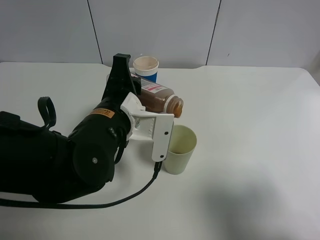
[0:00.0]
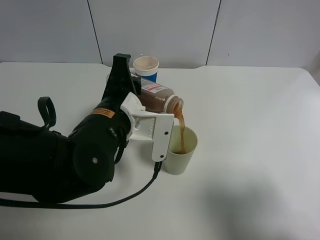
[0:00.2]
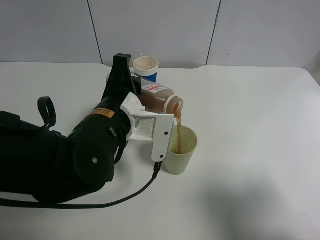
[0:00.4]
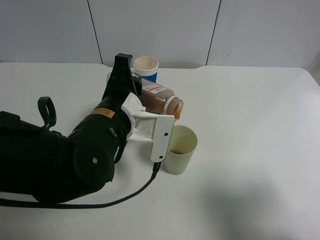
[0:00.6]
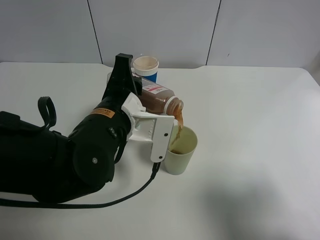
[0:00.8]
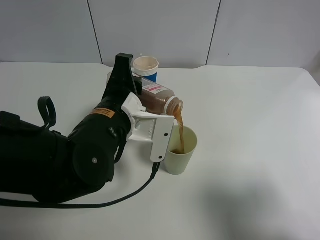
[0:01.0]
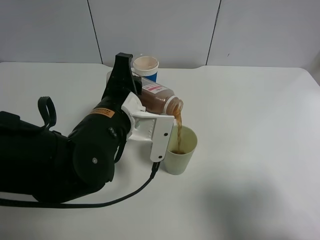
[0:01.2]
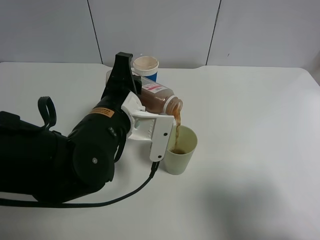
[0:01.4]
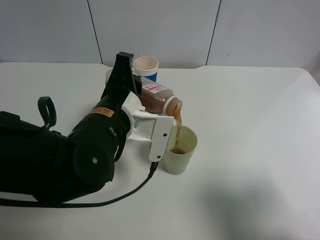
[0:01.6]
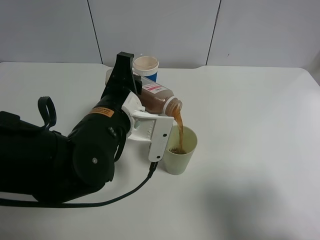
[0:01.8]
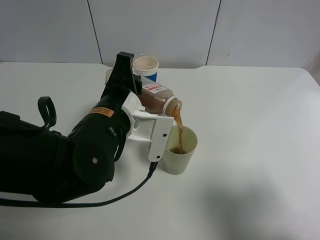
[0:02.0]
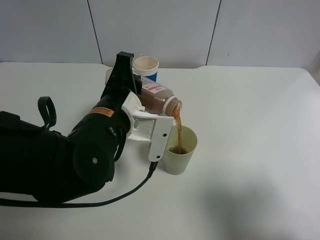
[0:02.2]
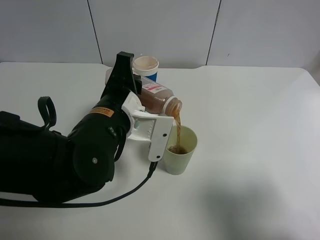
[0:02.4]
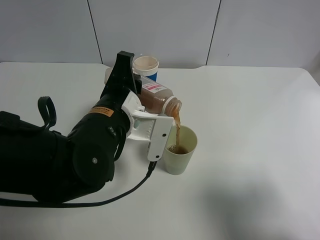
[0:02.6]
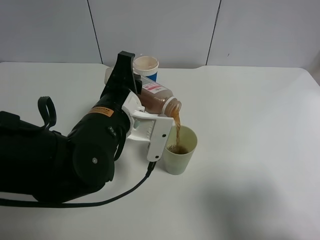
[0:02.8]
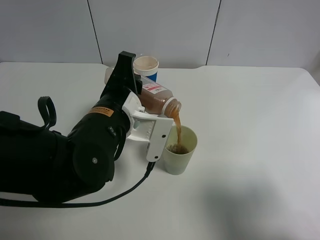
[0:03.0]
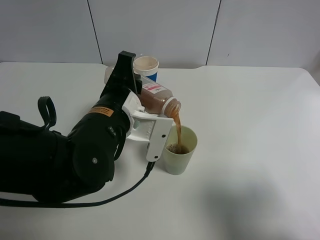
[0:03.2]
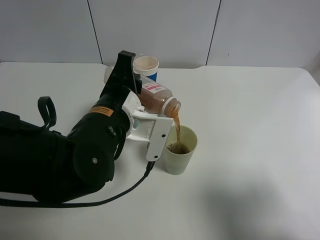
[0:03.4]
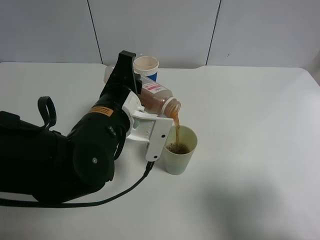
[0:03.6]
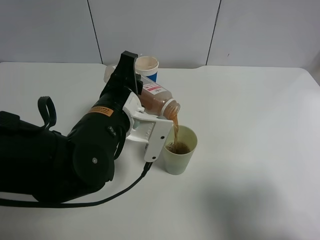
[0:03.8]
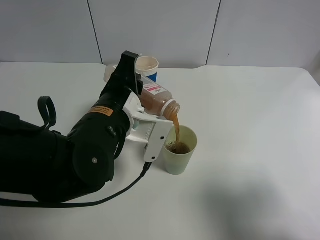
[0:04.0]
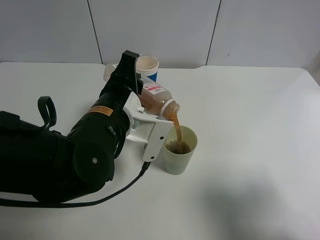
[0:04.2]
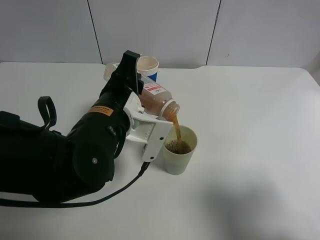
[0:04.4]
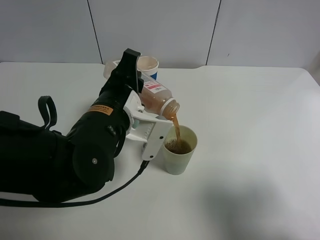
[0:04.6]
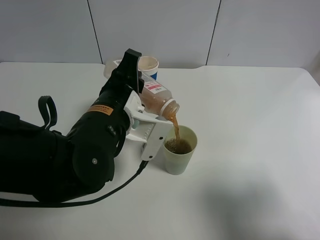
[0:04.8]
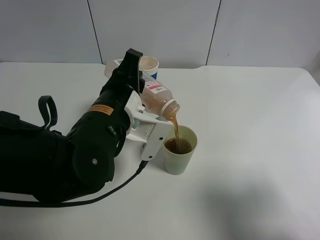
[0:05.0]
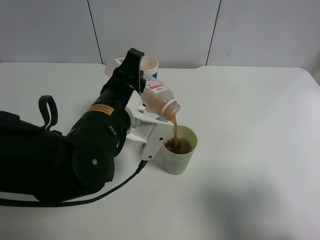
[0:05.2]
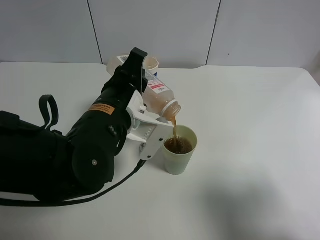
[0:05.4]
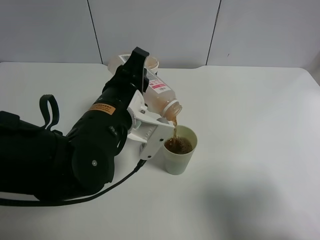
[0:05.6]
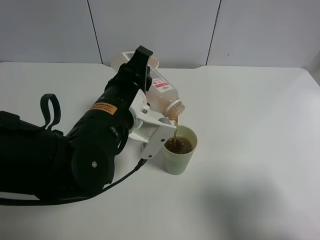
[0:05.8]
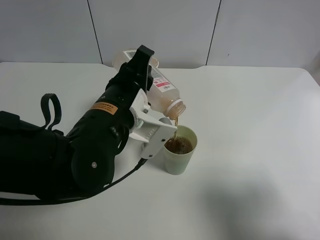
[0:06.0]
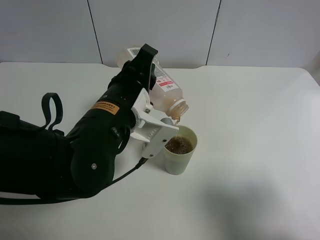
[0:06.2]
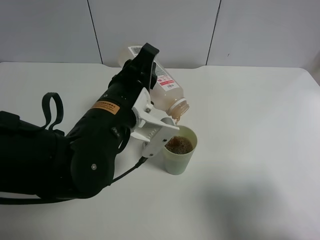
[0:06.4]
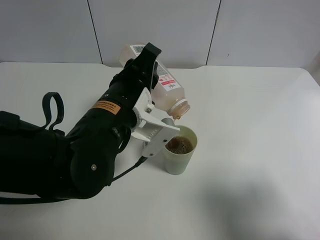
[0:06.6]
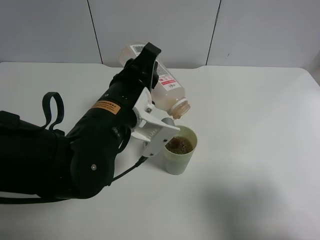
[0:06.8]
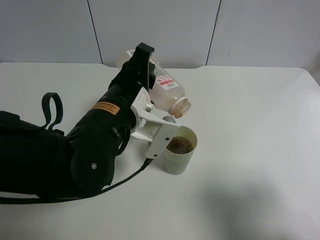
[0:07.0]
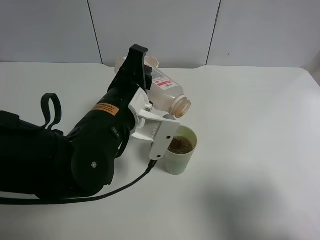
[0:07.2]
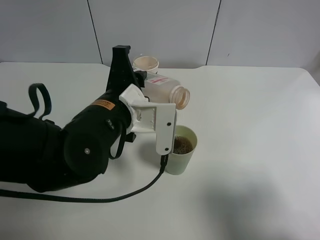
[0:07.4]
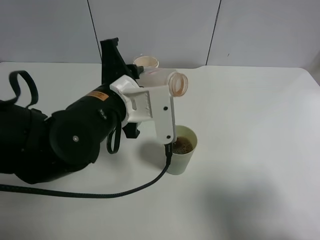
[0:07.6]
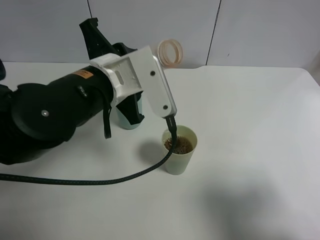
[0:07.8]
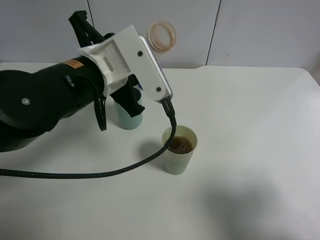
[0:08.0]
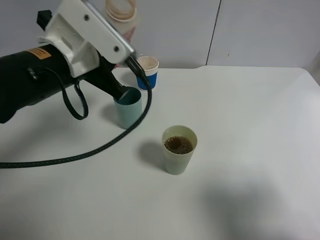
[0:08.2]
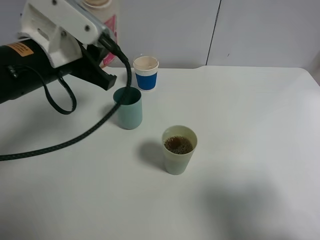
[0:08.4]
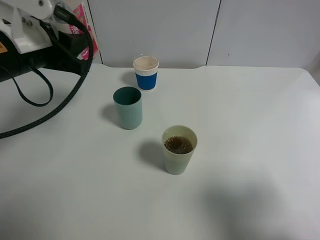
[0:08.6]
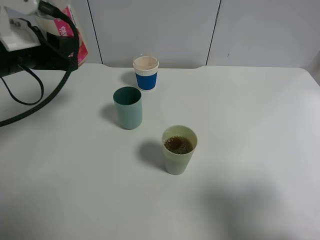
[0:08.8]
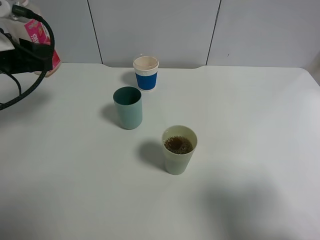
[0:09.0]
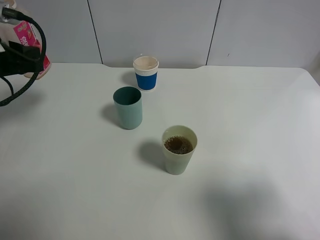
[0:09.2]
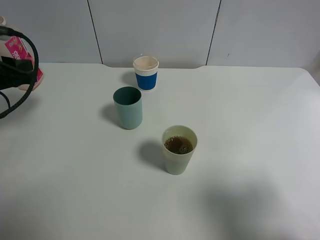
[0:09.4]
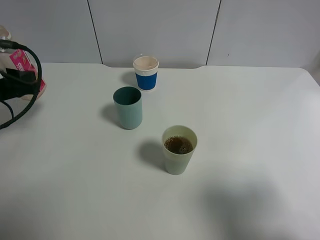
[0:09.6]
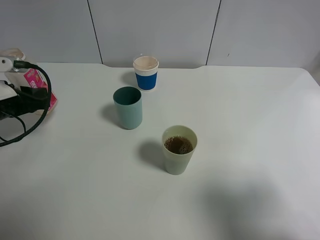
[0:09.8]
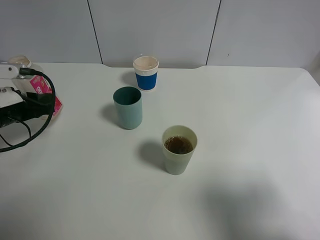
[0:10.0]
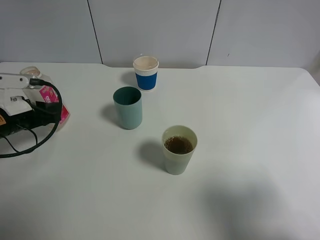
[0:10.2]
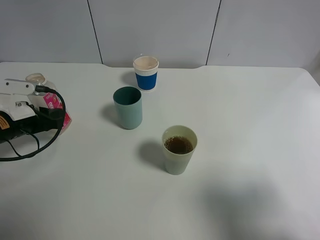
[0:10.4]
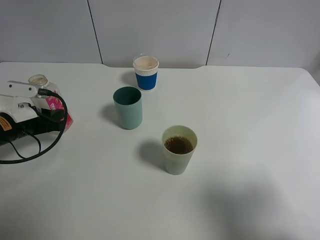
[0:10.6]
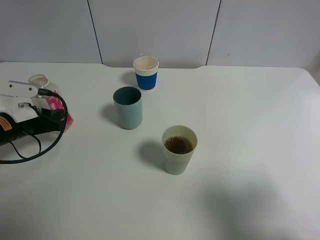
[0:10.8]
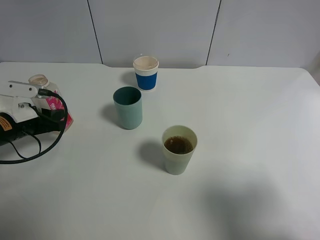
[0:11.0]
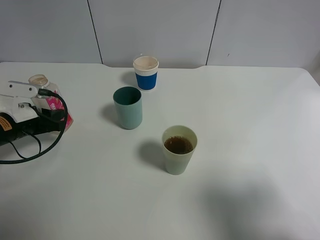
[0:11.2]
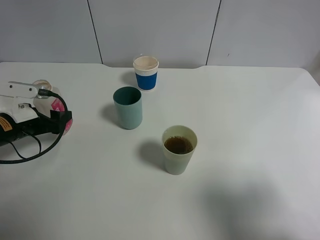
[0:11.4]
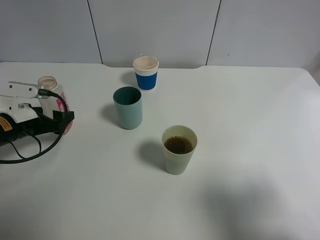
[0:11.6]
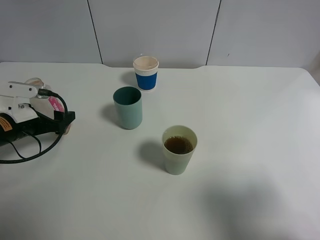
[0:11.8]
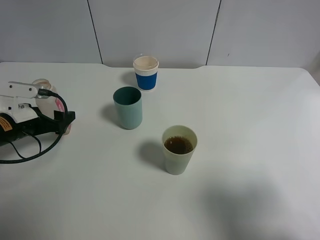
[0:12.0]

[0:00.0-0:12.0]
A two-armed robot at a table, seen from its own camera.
Task of the whole recording: use a clamp to hold the bottle of the drink, pour the beverage into a random cup, then clamp the cup containing the drink and pour the drink into another random cup.
Step, 0:00.0 to 0:07.2: Pour the drink into the green plastic cup with left gripper.
Step, 0:07.4 to 0:11.6: Place the drink bottle on the table with left gripper.
0:00.0 to 0:01.6: Both grippers stay about where they are.
0:01.6 to 0:03.0: Neither gripper changes place.
0:03.0 to 0:06.0: The grippers move only a little.
0:07.6 to 0:09.0: The left gripper travels to the left by about 20 cm.
0:09.0 to 0:10.4: The left gripper is displaced downward by some 15 cm.
0:10.4 to 0:12.0: The left gripper opens.

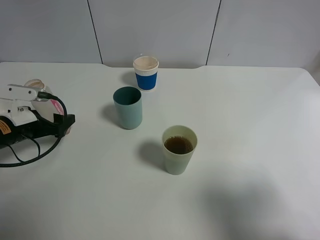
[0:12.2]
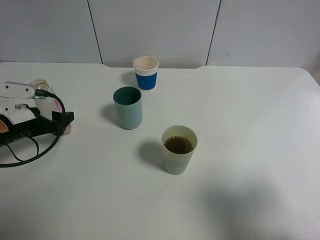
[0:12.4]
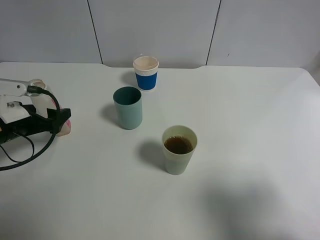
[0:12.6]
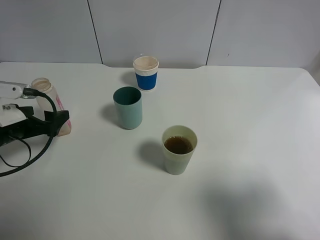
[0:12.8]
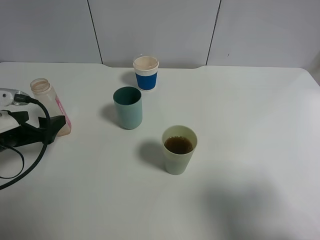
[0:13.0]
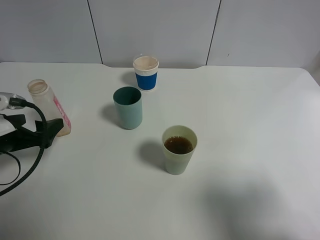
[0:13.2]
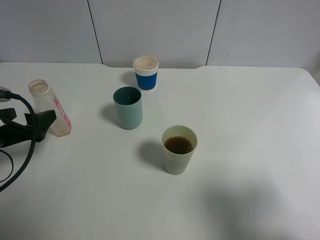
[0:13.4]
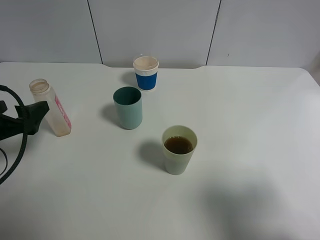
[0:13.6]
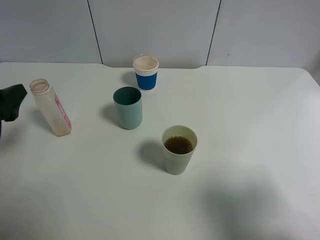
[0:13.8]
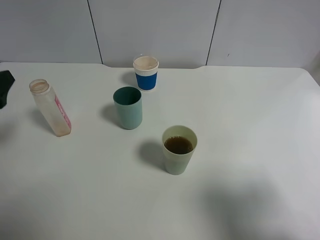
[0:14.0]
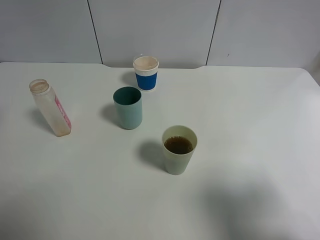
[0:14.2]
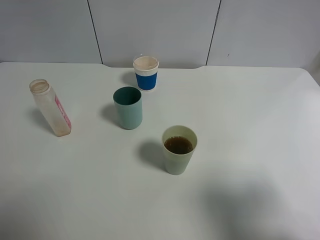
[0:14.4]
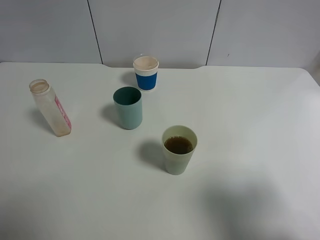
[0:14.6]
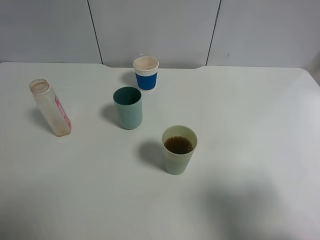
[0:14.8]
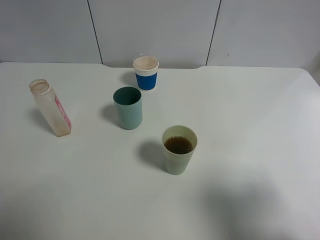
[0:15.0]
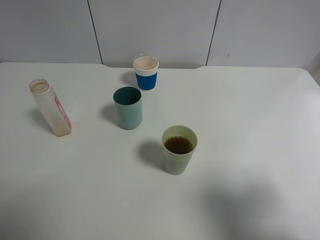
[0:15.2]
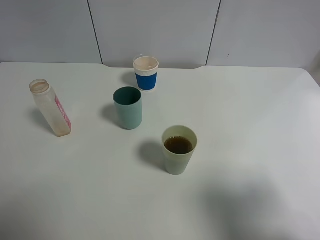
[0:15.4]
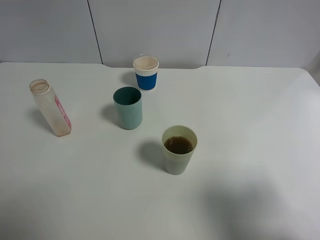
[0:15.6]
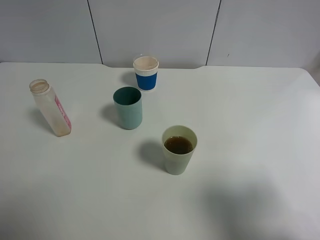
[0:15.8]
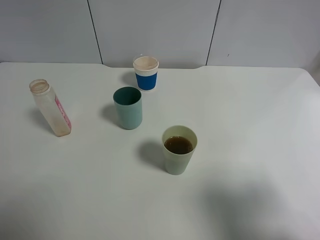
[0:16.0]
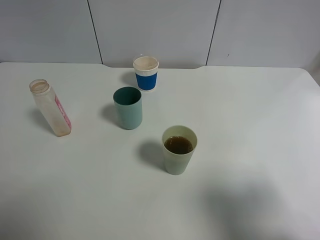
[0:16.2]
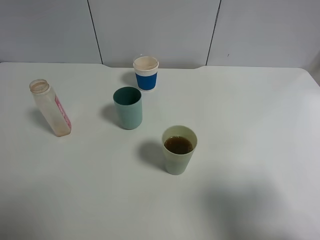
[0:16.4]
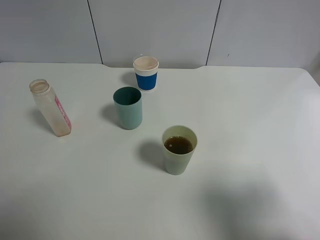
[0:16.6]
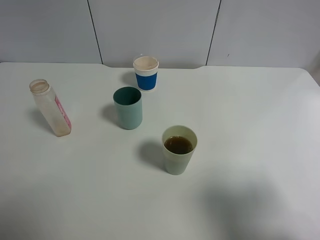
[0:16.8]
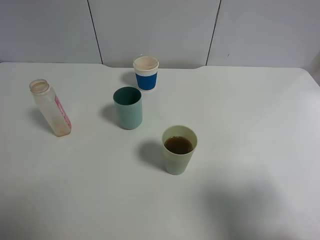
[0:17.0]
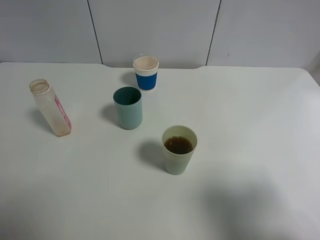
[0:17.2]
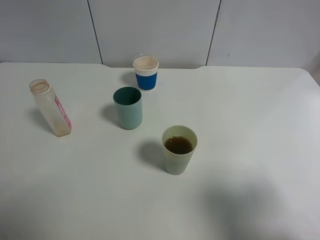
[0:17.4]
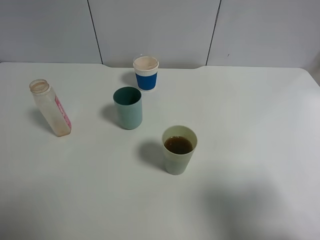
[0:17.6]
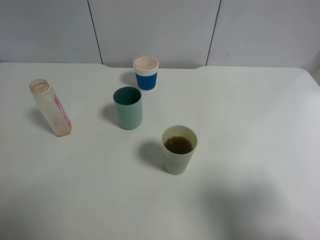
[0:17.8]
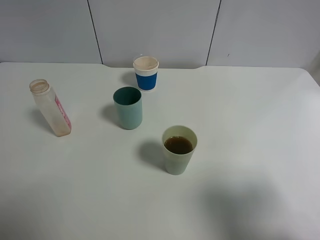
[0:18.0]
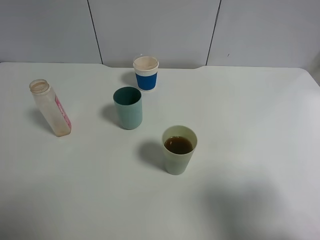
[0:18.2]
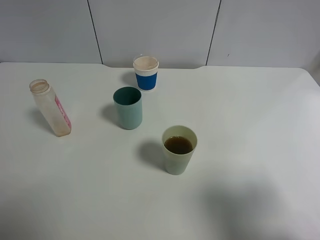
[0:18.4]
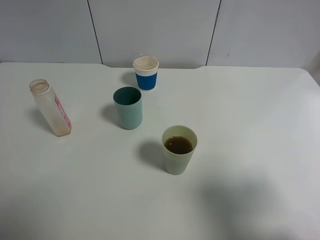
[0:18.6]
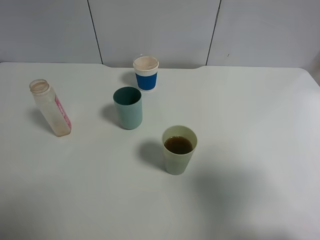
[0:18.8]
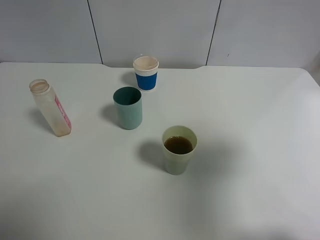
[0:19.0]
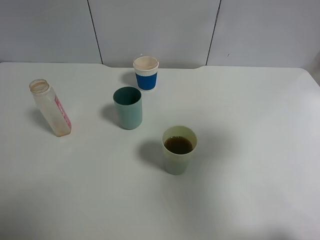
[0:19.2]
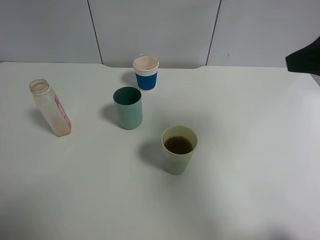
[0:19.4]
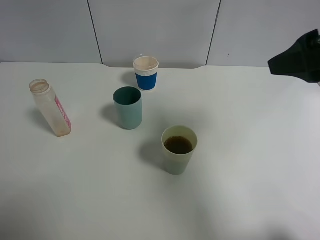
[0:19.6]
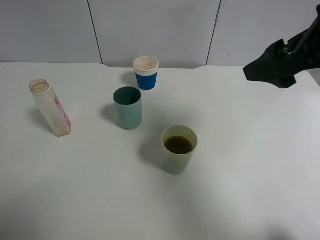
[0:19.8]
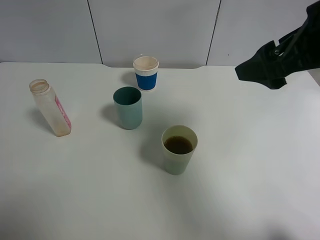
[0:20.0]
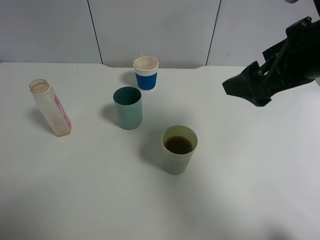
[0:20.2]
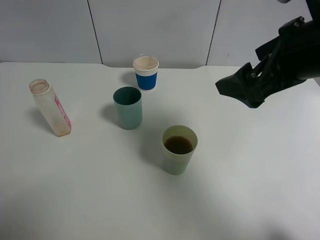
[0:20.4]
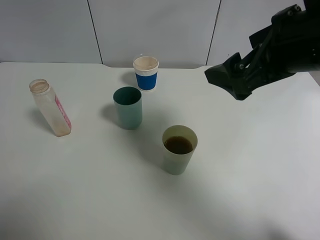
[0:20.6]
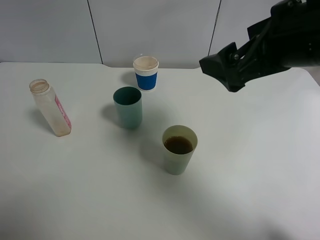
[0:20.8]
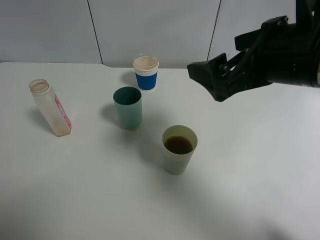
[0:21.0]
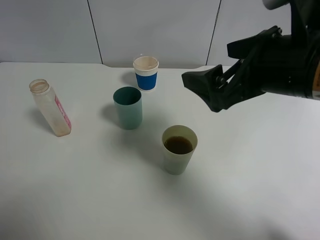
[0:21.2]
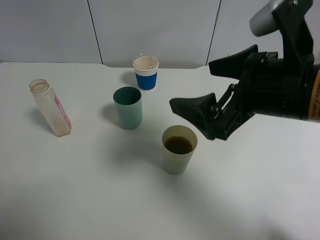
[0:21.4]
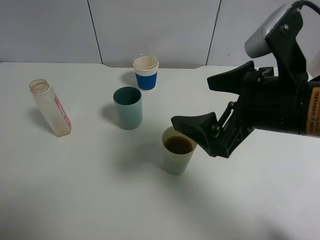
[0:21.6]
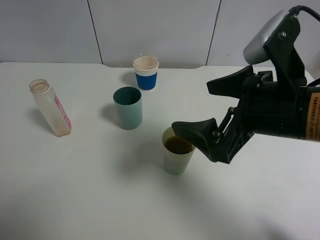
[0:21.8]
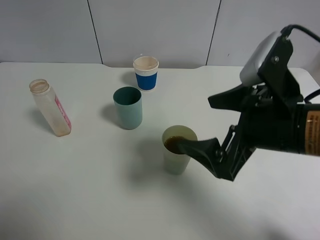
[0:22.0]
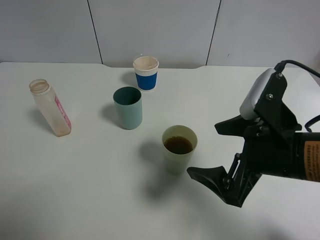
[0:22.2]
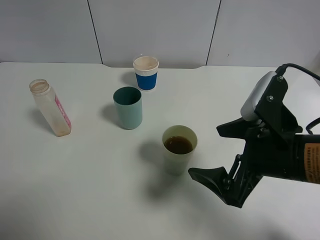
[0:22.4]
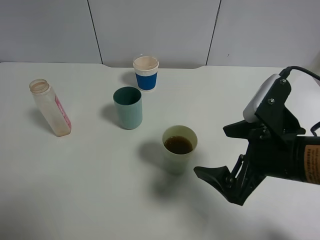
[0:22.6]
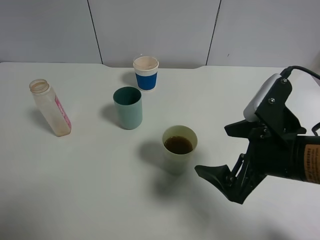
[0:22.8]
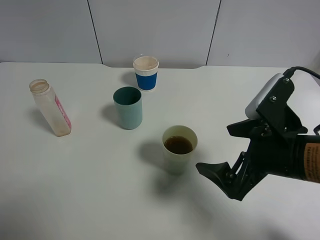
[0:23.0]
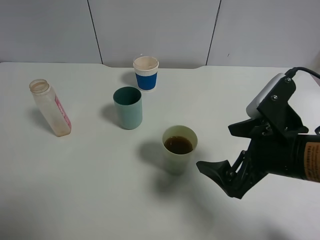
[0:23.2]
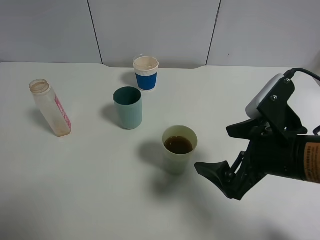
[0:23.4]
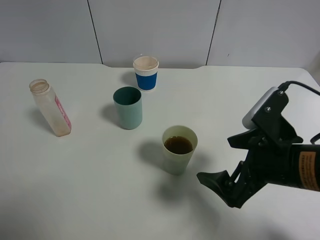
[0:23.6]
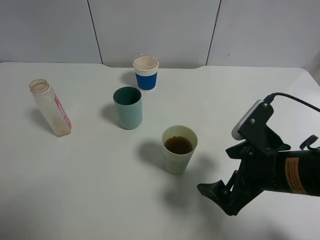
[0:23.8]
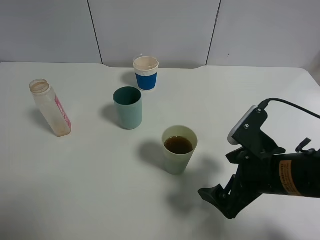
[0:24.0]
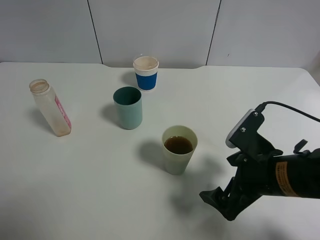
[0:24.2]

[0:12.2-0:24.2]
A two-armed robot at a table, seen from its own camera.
Task of the whole recording: use a clamp to hold the bottle of the drink, pour the beverage into a random cup, then clamp the cup containing the drink and pour the drink into another random cup.
0:12.2 to 0:13.8: The left gripper is displaced upward and backward by roughly 15 cm.
0:13.8 to 0:15.2: The left gripper heads backward and upward, covering some 20 cm.
0:16.6 to 0:18.2: The two grippers keep their place.
0:18.2 to 0:19.8: The right gripper shifts about 20 cm forward and to the left.
0:19.8 to 0:21.2: The right gripper heads to the left and downward, covering approximately 10 cm.
0:21.2 to 0:22.6: The right gripper shifts roughly 10 cm downward.
0:22.6 to 0:24.2: The right gripper shifts by about 5 cm.
